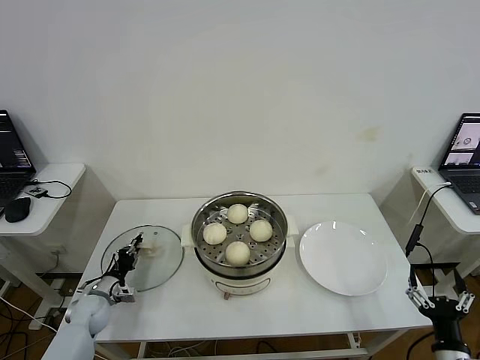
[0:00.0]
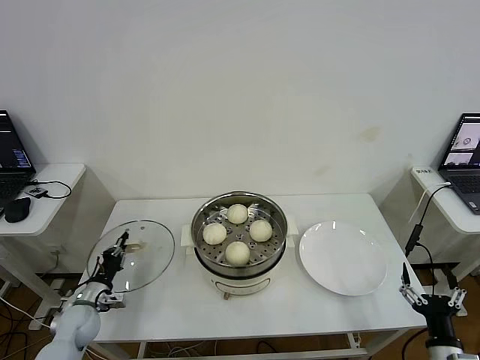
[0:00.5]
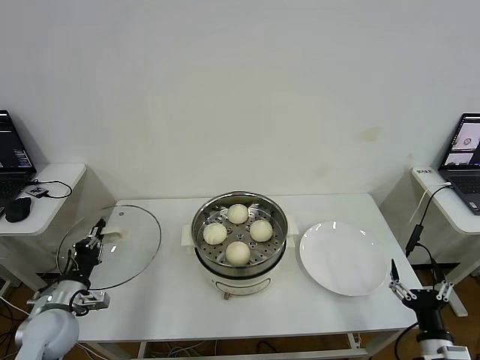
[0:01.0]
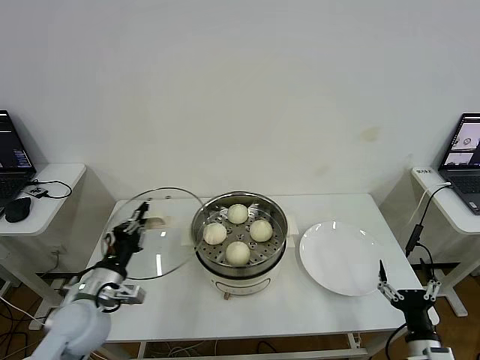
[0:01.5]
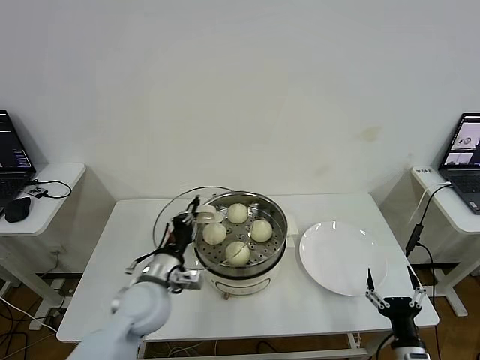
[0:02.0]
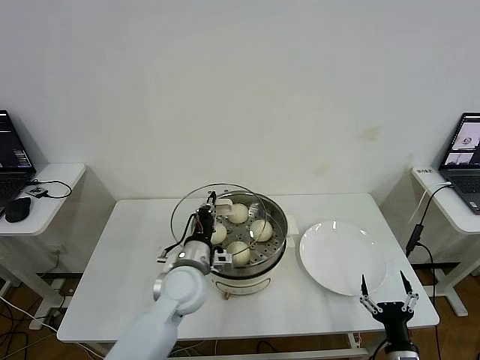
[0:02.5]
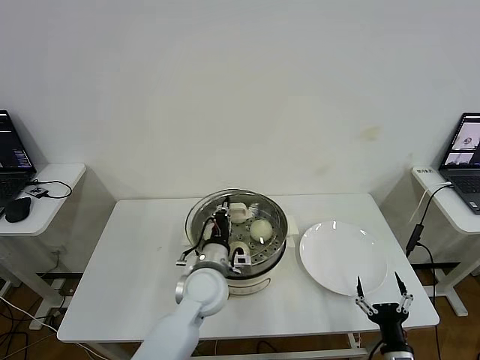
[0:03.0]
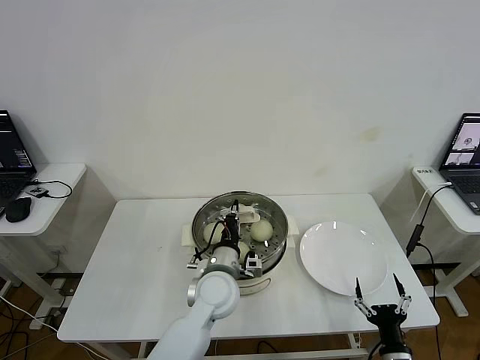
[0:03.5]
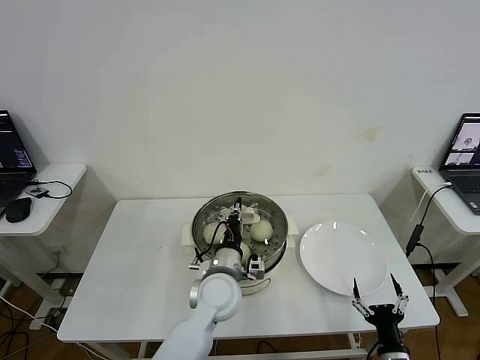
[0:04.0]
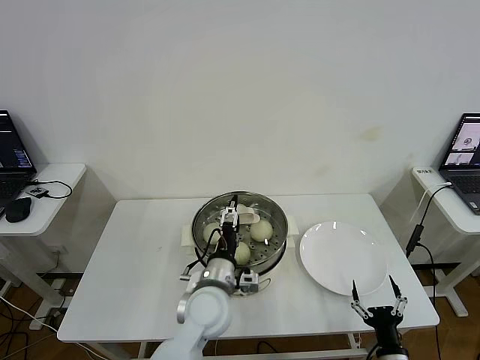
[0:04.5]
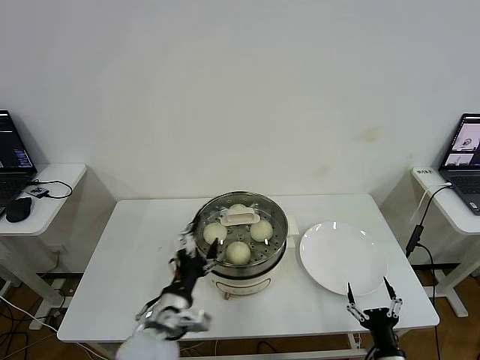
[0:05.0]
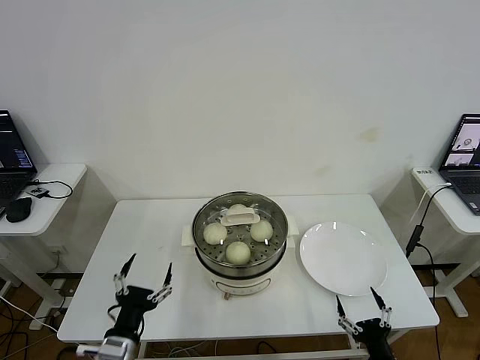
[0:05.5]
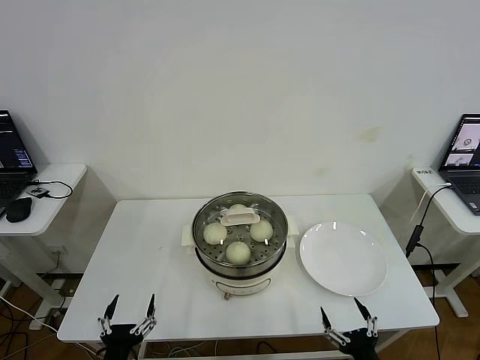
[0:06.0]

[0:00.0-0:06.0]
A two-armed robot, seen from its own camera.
Step, 0:00.5 to 0:04.0: Place the pot lid on the steamer with left gripper.
0:00.0 to 0:02.0: The right gripper moves to the left, approximately 5 cm, while the left gripper is displaced to the right and upward by about 30 cm.
0:02.0 to 0:04.0: The left gripper moves to the right, about 15 cm.
0:04.0 to 0:06.0: The left gripper is displaced backward and to the left by about 30 cm, and opens its fingers. Meanwhile the right gripper is displaced backward by about 5 cm.
